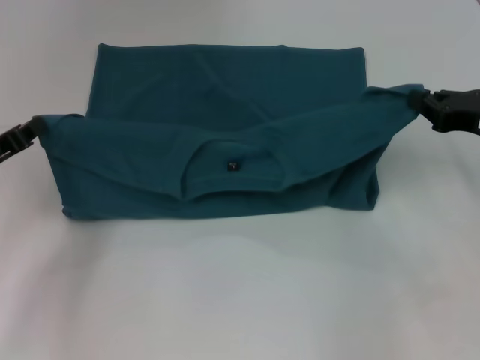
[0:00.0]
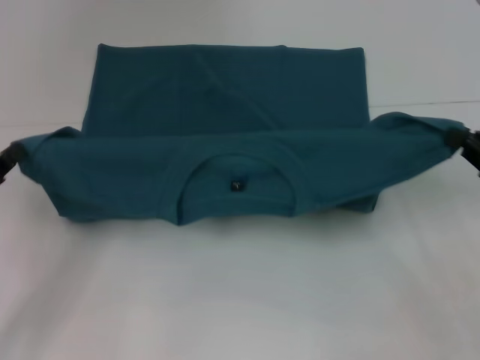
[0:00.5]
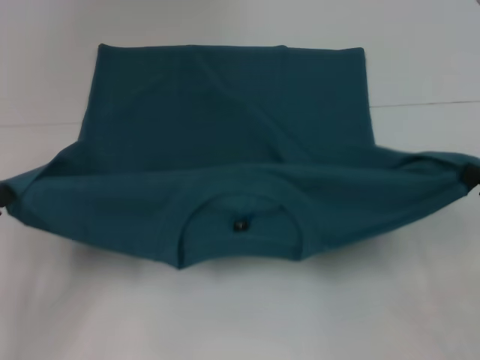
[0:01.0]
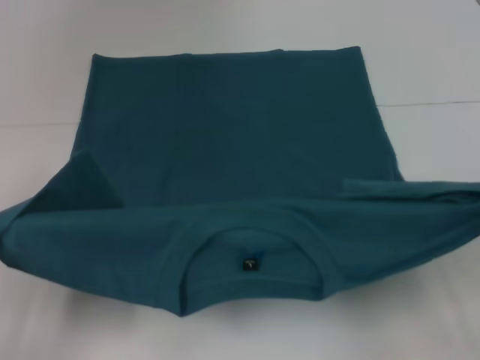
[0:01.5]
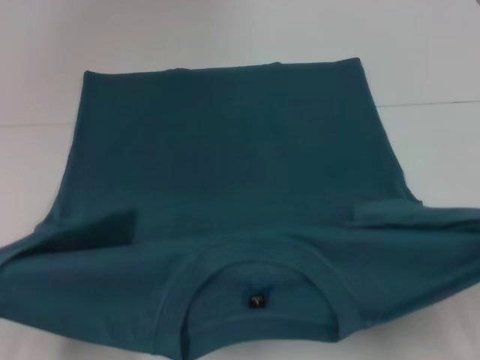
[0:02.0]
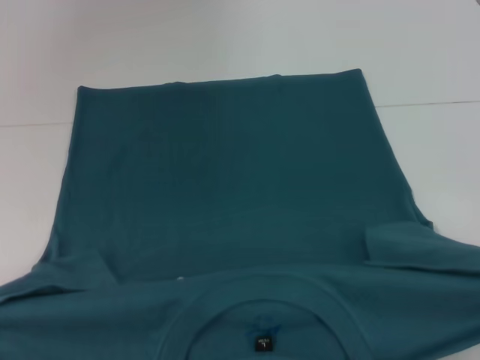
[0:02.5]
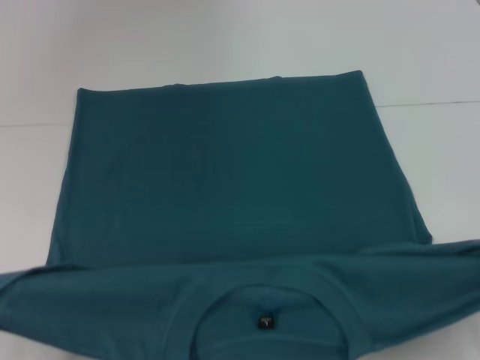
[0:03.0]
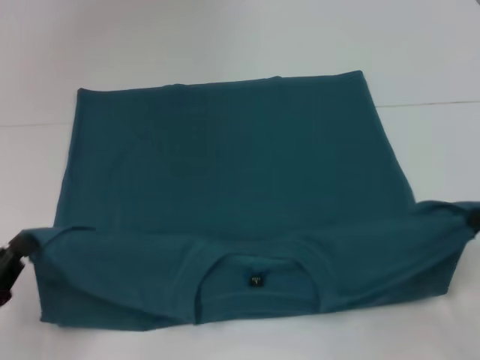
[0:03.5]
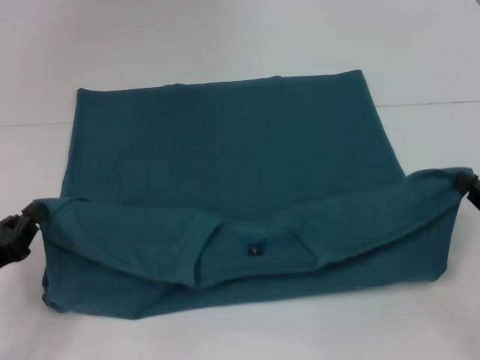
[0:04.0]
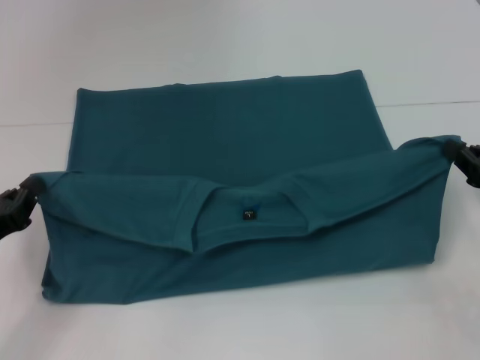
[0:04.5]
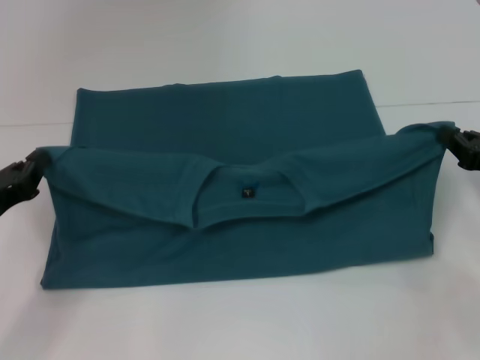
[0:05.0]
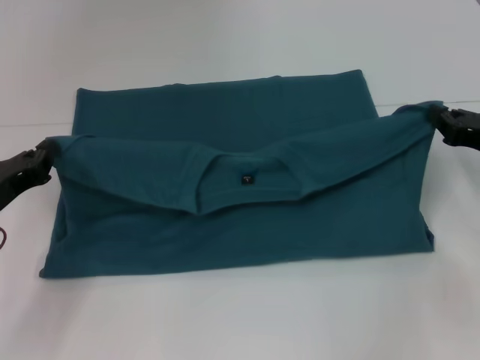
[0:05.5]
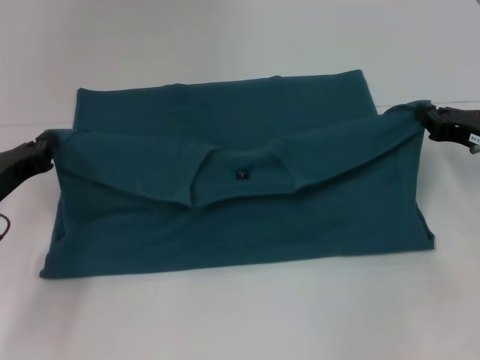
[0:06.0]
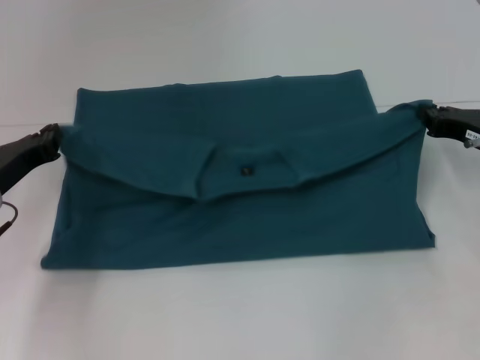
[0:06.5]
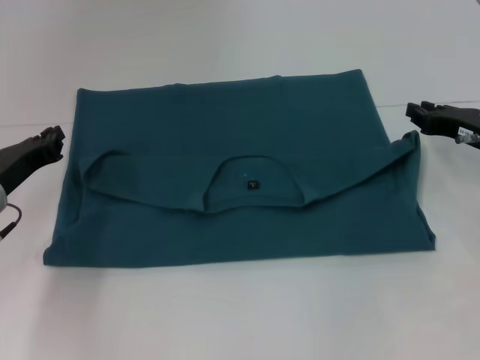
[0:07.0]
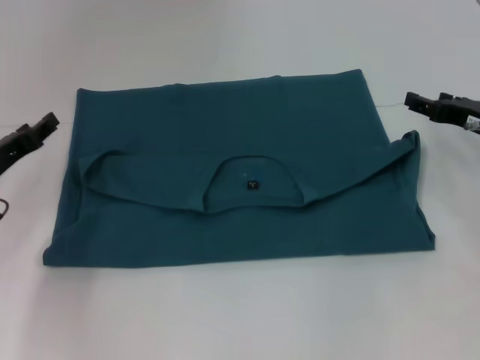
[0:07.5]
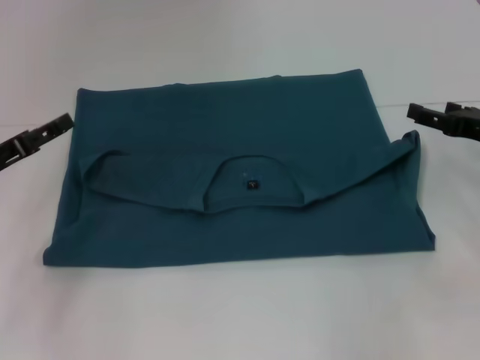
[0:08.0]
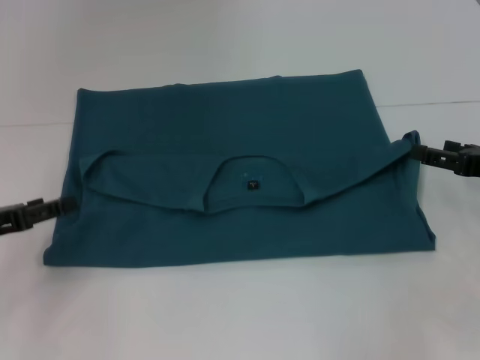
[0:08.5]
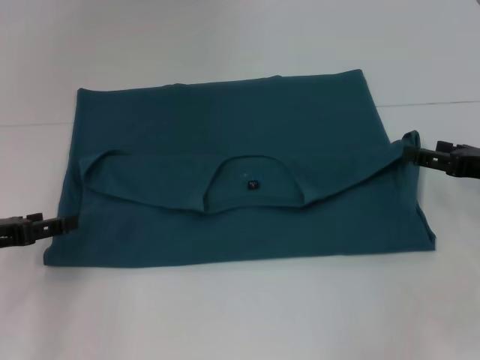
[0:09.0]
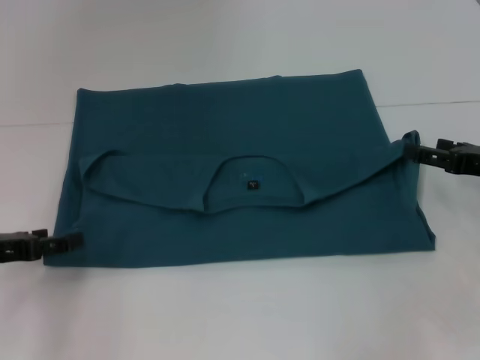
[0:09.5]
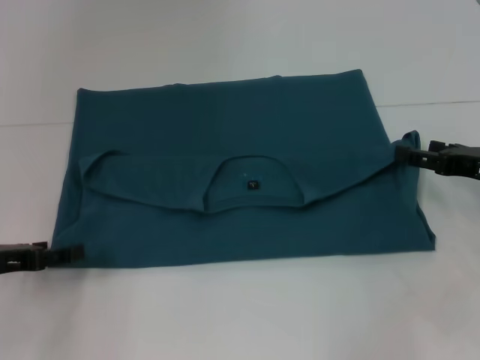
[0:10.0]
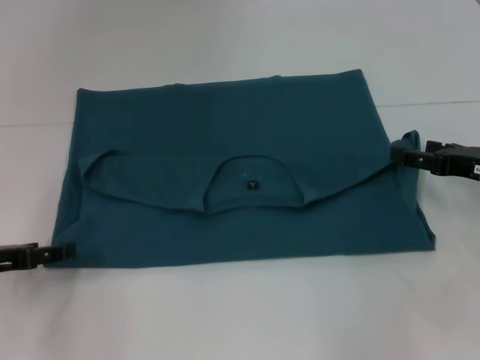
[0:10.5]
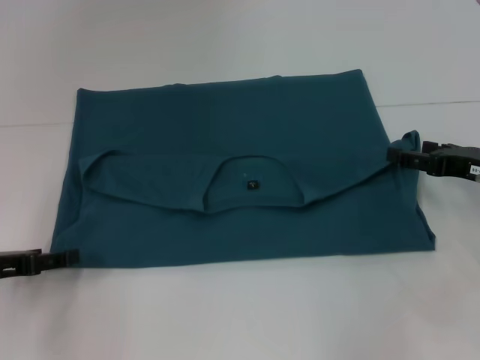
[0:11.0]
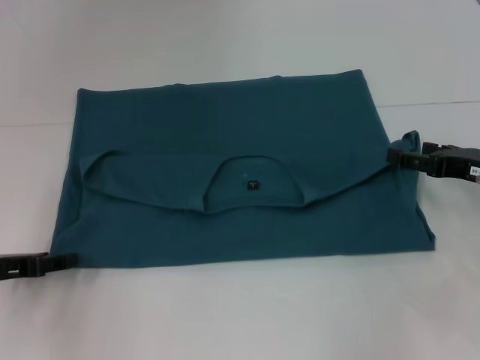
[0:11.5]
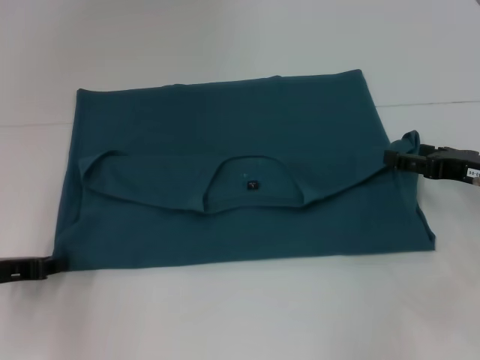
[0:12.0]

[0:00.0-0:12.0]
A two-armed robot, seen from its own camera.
Step, 0:00.0 to 0:07.0: Fold the clothes to the left.
Step, 0:00.0 to 0:07.0: Fold the clothes to the right.
0:00.0 to 0:02.0: The two grippers go some 20 cm backward.
0:02.0 to 0:04.0: The two grippers go roughly 10 cm forward.
0:04.0 to 0:06.0: The two grippers go roughly 10 cm forward.
0:06.0 to 0:08.0: The right gripper opens its fingers. Meanwhile the left gripper opens.
0:10.0 to 0:12.0: The left gripper closes its fingers.

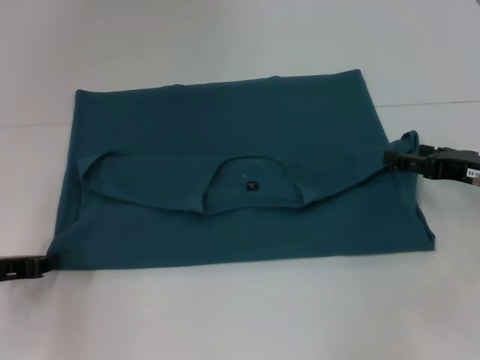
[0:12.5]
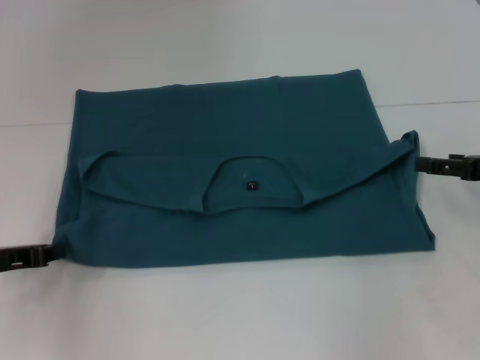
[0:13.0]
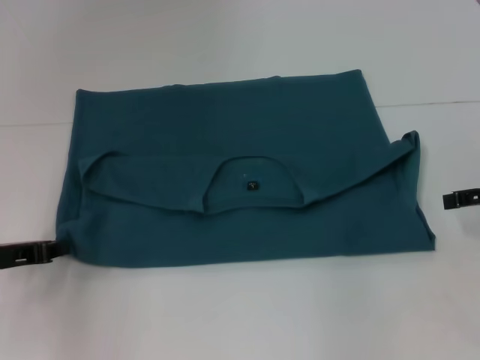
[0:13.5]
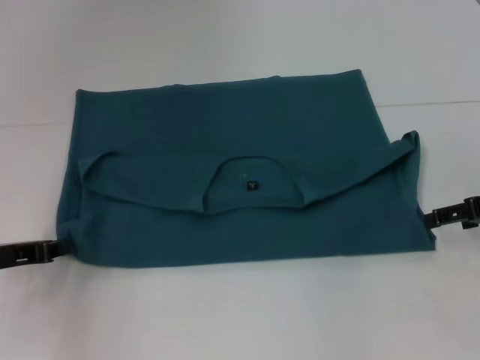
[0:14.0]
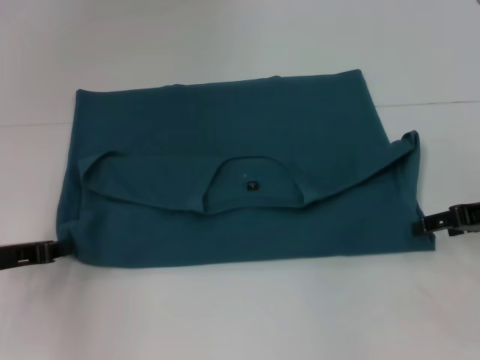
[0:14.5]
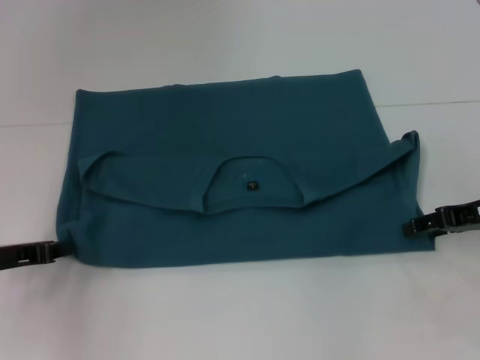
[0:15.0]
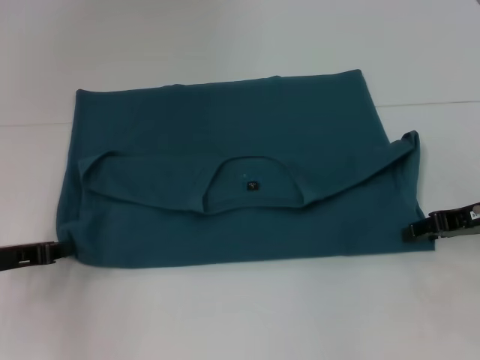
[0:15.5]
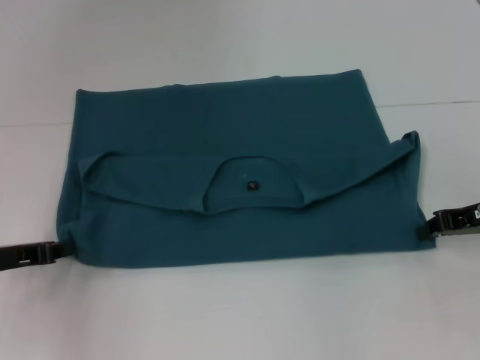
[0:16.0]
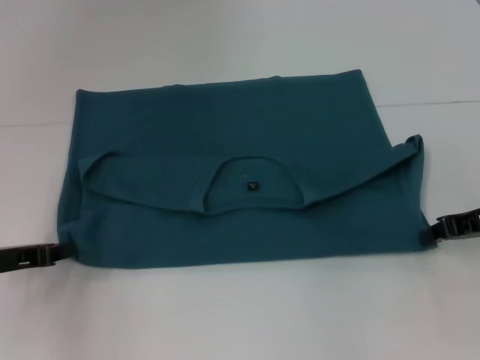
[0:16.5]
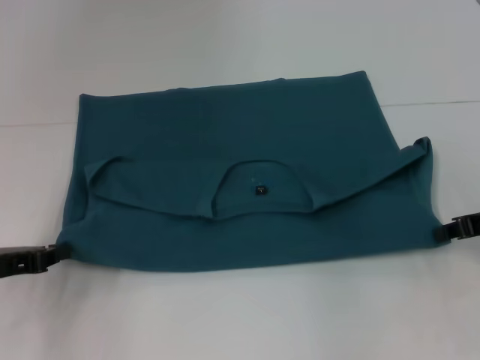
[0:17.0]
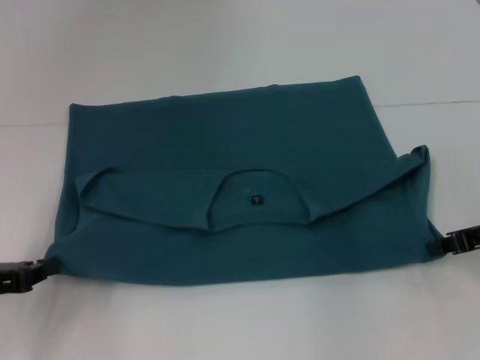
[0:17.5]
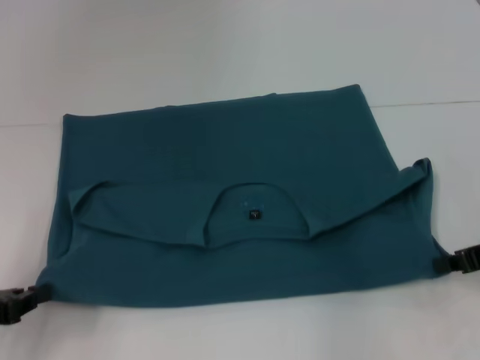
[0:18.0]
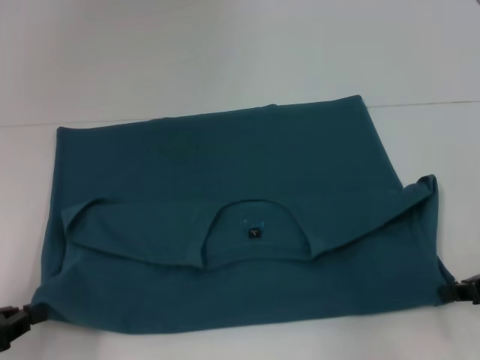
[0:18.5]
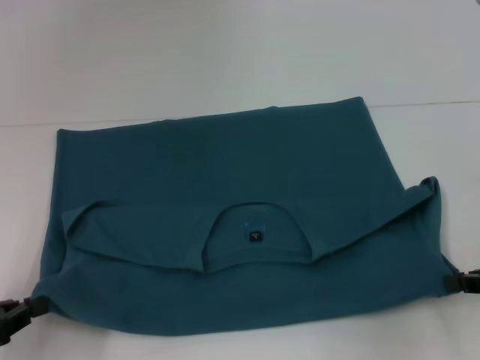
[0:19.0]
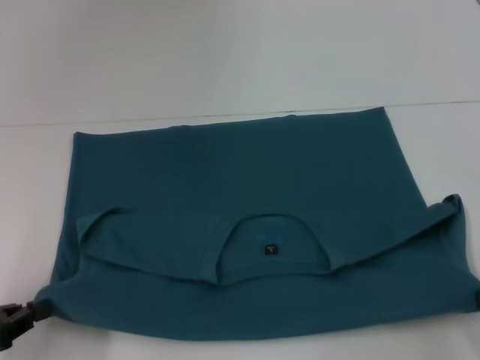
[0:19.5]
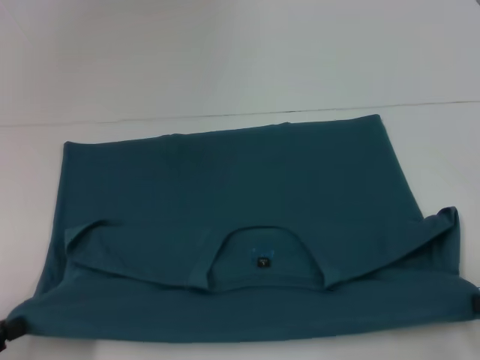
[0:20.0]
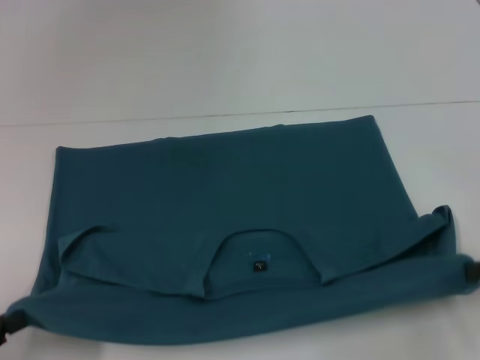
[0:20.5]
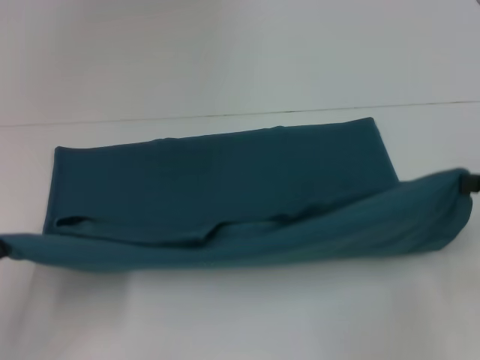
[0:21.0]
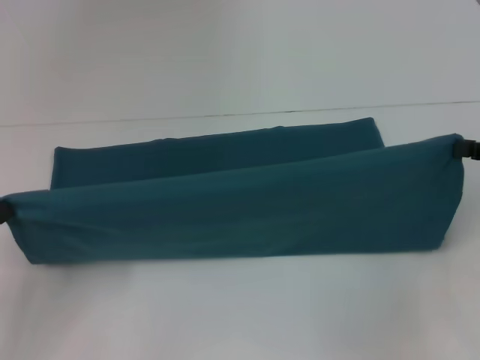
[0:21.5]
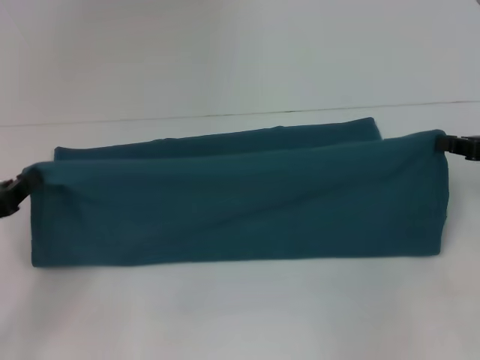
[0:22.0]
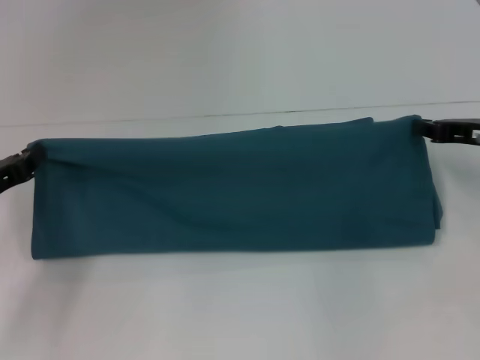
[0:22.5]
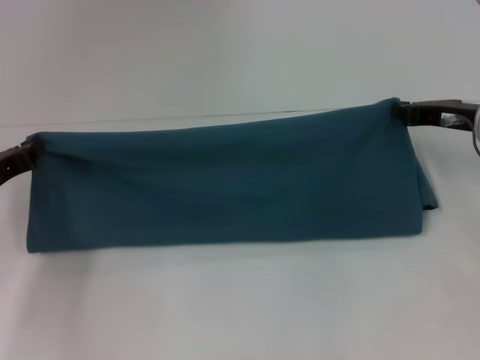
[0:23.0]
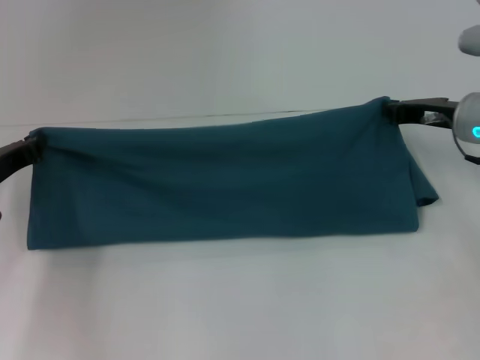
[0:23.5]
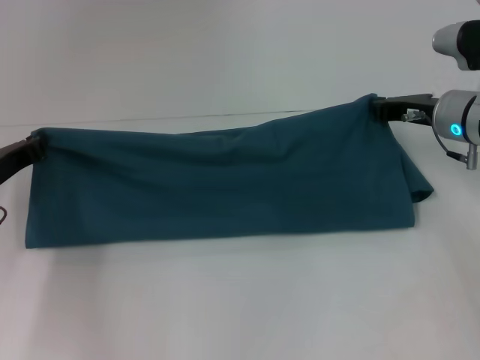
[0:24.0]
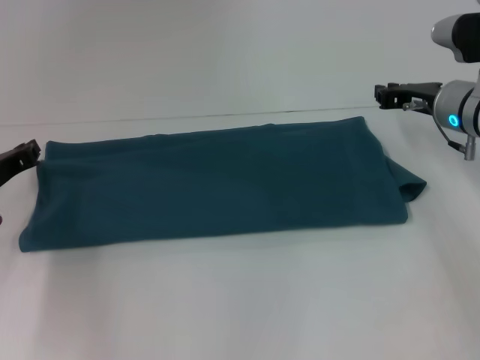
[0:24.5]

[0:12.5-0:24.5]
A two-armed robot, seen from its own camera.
Step, 0:12.5 to 0:19.5: Pull the clothes with your left hand.
Step, 0:12.5 to 0:19.5: Pull the clothes with your right hand.
0:14.5 to 0:16.5: The right gripper closes its fingers.
0:16.5 to 0:18.5: Both grippers travel together backward, roughly 10 cm.
0:18.5 to 0:20.5: The right gripper ends up some 5 cm from where it was.
0:20.5 to 0:22.5: Both grippers move forward, about 15 cm.
0:22.5 to 0:24.5: The right gripper travels to the left and forward by approximately 10 cm.

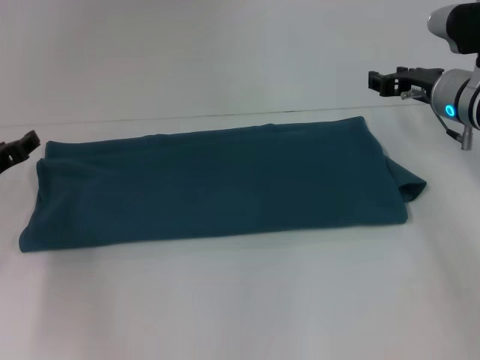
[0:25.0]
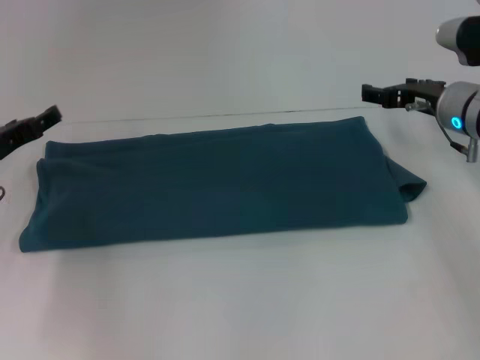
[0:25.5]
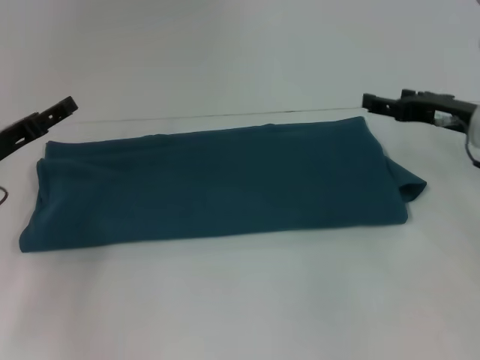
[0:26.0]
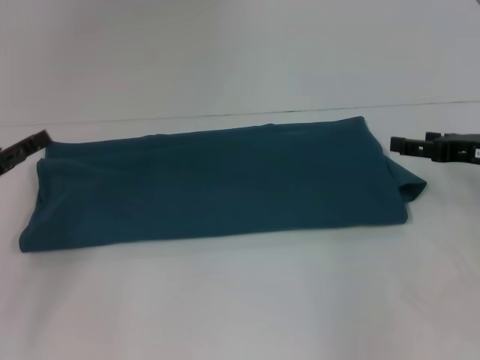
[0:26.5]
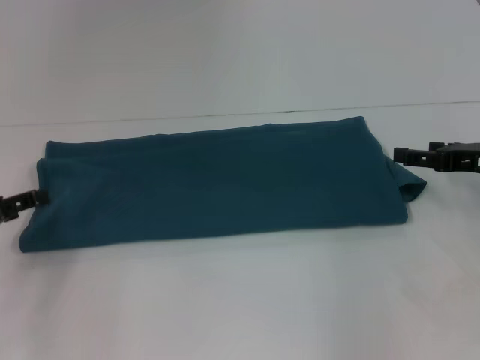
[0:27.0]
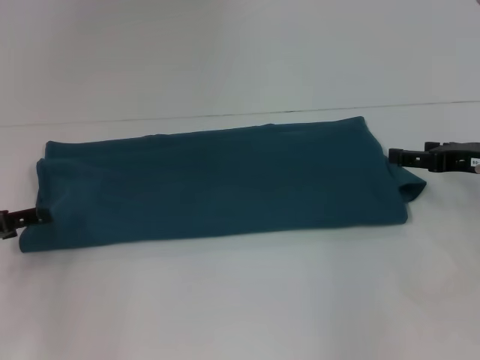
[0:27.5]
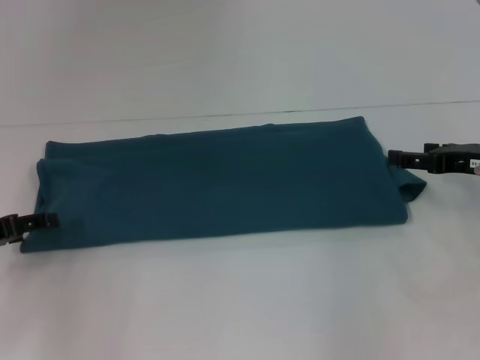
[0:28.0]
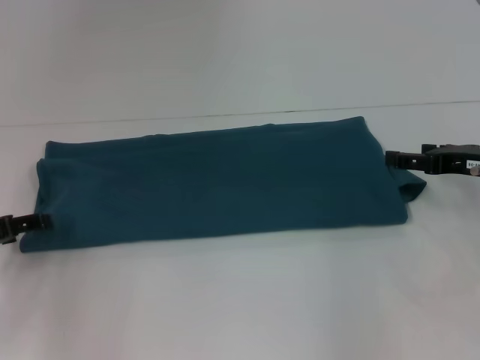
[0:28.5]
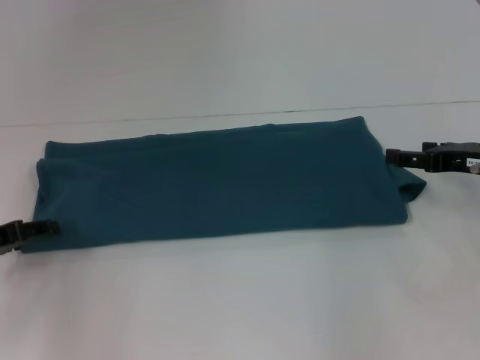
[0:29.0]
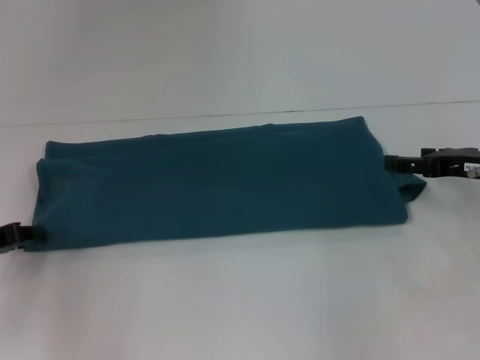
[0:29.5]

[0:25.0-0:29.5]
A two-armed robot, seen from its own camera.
0:25.0 to 0:27.0: The right gripper shifts roughly 10 cm backward and to the right, and opens its fingers, while the left gripper travels backward by about 5 cm, and opens.
0:27.0 to 0:29.5: The left gripper closes.
